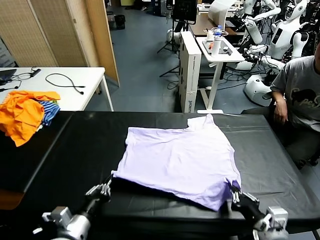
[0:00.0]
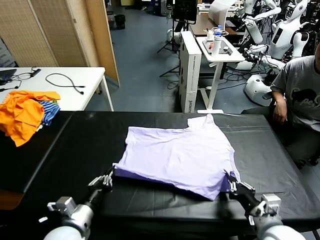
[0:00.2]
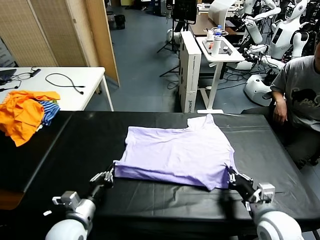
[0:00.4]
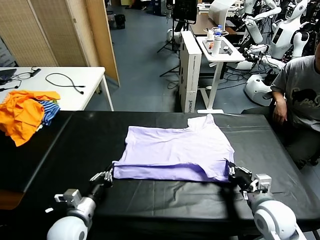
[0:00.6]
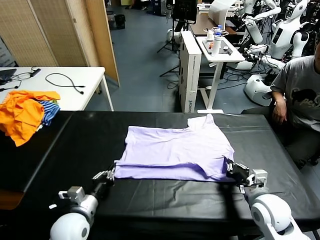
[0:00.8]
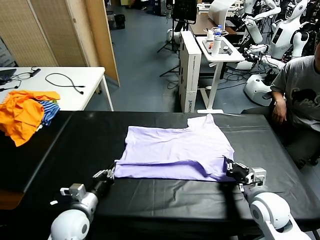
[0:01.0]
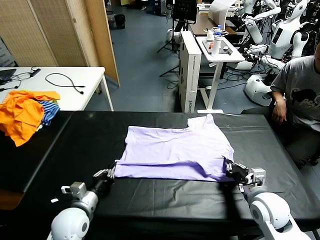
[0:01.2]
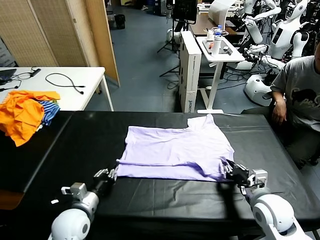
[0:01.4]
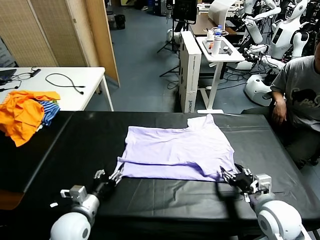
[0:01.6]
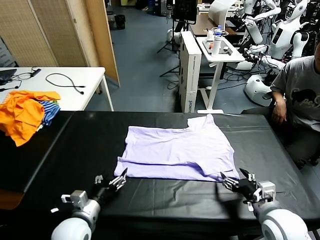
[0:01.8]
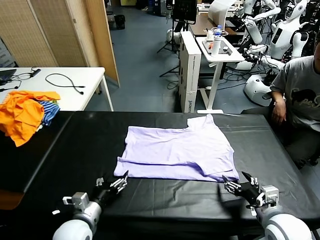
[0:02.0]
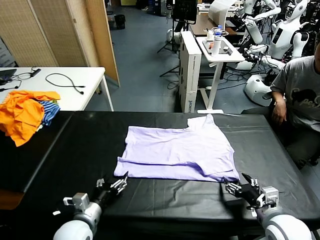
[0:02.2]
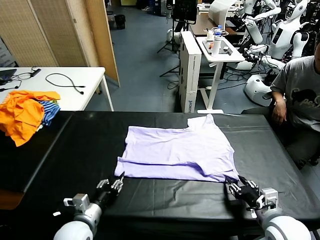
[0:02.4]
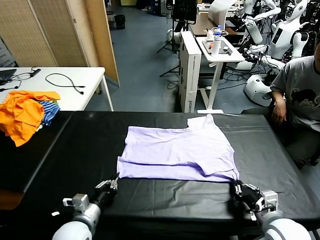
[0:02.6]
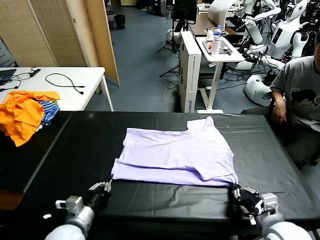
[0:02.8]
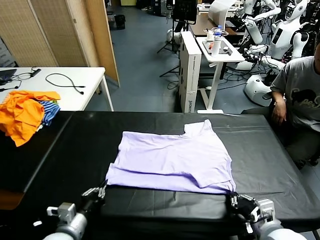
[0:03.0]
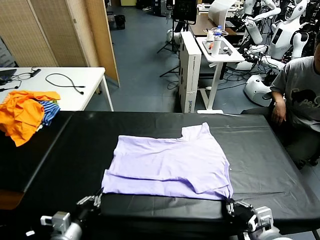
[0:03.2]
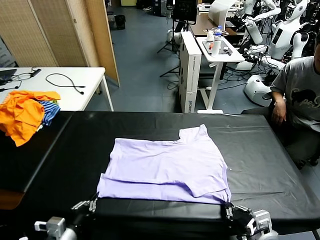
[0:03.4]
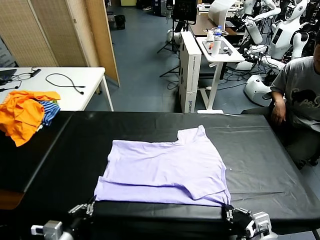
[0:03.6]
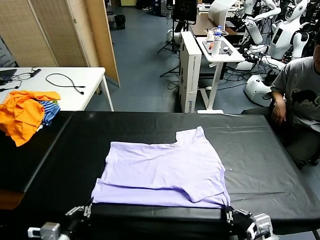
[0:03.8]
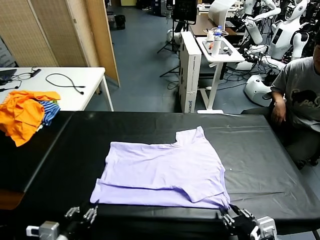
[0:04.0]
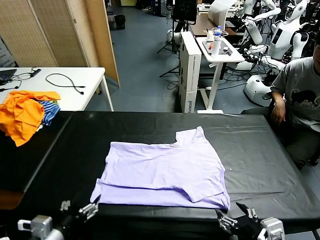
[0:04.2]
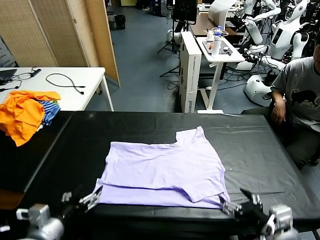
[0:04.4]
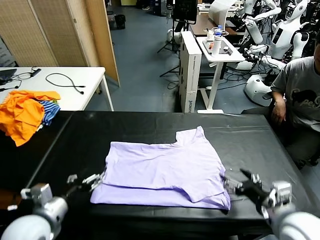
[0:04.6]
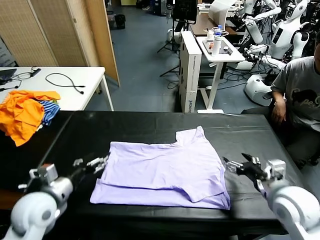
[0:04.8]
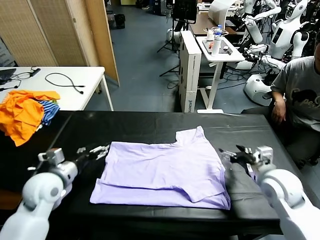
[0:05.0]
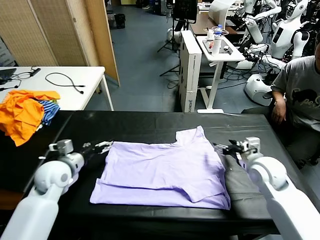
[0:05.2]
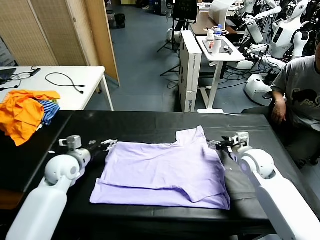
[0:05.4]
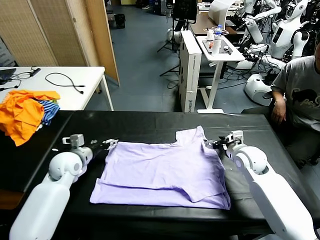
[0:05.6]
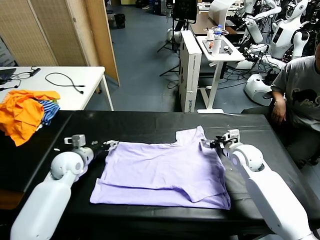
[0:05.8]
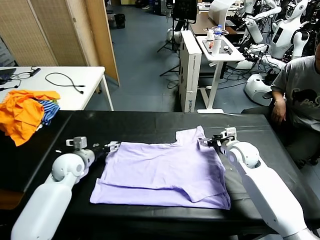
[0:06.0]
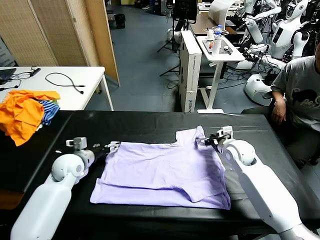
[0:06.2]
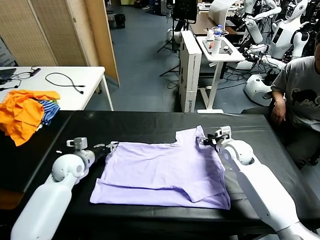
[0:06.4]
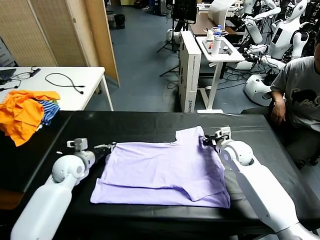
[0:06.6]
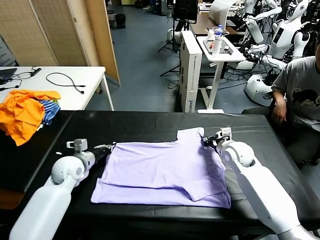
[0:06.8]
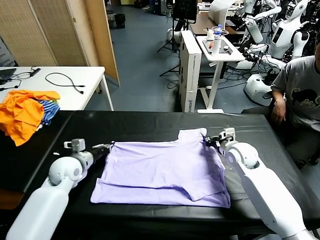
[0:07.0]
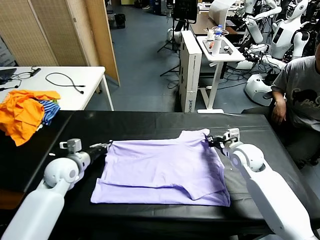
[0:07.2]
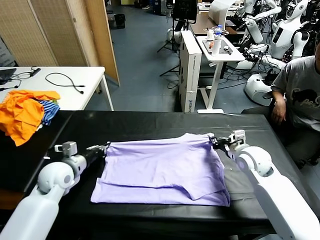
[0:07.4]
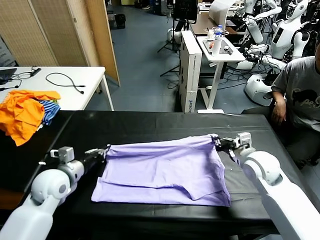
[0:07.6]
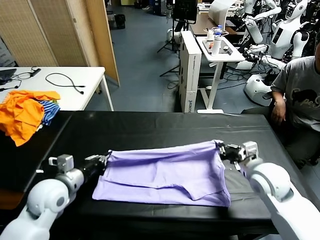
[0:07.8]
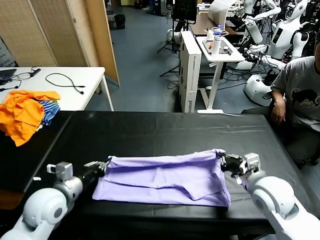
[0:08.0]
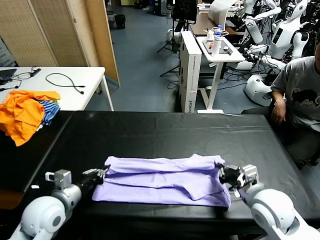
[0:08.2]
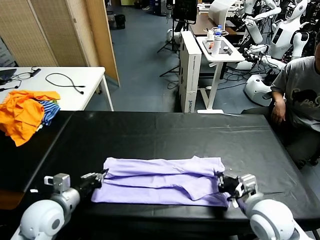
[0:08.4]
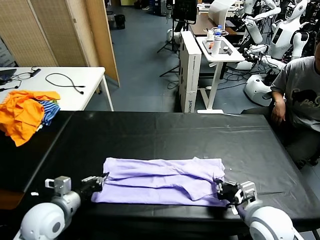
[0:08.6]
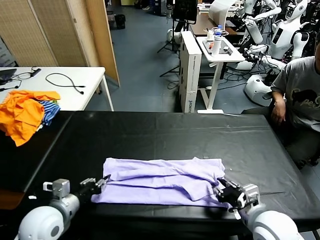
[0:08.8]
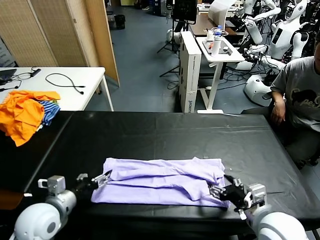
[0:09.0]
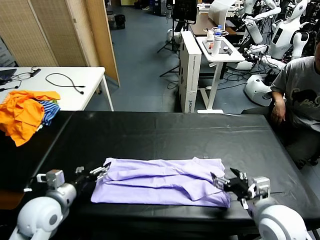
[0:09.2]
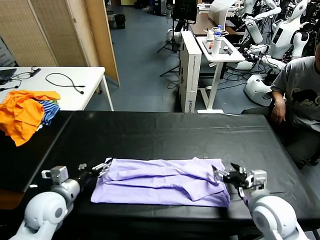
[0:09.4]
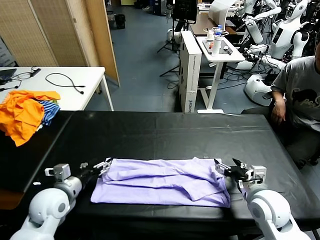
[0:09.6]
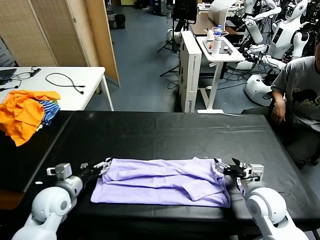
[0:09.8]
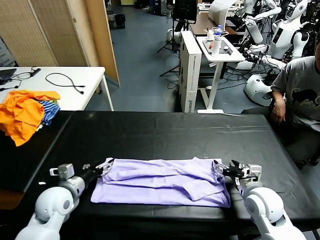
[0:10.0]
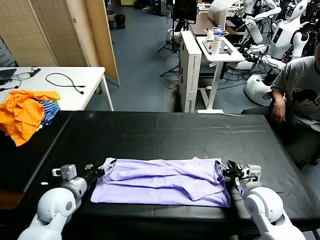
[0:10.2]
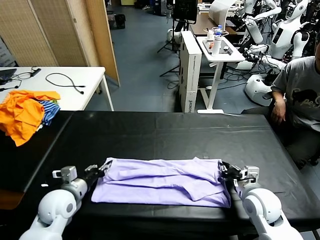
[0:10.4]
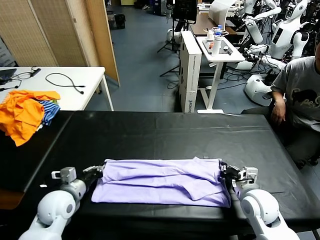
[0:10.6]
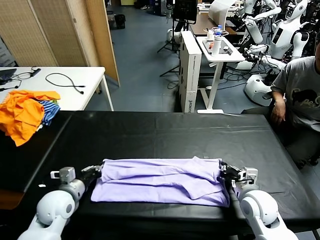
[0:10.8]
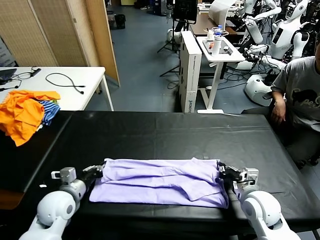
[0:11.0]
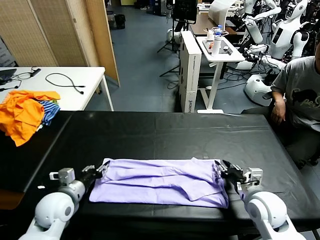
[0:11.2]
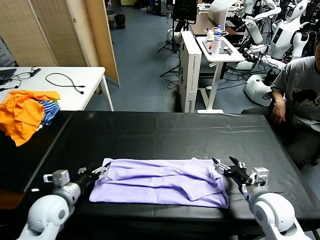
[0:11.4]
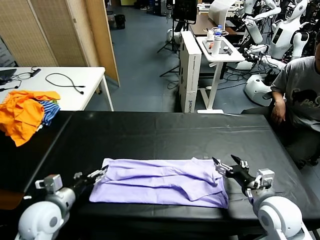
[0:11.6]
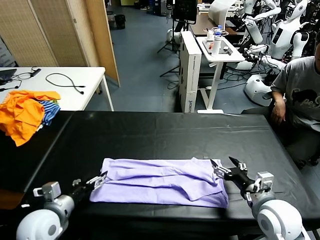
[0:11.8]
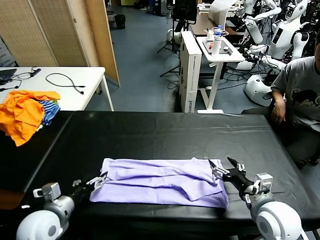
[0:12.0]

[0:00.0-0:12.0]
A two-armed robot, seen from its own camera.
Task of the whole recording: fold and organize the clothes.
Step, 0:00.0 to 0:01.4: use both grippers to drag the lower edge of the fabric forward and fold it over the upper edge.
Step, 0:01.6 to 0:04.0: Drag the clothes downward with both gripper.
Step, 0:04.2 to 0:06.6: use both grippers simultaneously to clamp the upper edge of the clothing fabric.
Step, 0:06.8 to 0:11.4: use both grippers to drag the upper edge of the fabric backward and fold it over the lower edge.
0:00.0 to 0:01.6: The right gripper reaches approximately 10 cm forward, then returns, and opens up. Meanwhile the left gripper opens.
0:01.6 to 0:03.0: Both grippers move backward, about 5 cm. The right gripper closes up. Meanwhile the left gripper closes.
0:03.0 to 0:04.4: Both grippers travel together upward, about 5 cm. The left gripper opens its fingers. The right gripper opens its fingers.
0:04.4 to 0:06.0: The two grippers go roughly 25 cm forward.
0:06.0 to 0:07.6: The right gripper is displaced backward and upward by some 15 cm, and closes up. The left gripper goes about 10 cm backward, and closes its fingers.
0:07.6 to 0:09.0: The left gripper moves backward, about 10 cm, and opens; the right gripper travels backward by roughly 15 cm, and opens.
0:09.0 to 0:10.4: The right gripper moves downward and forward, roughly 10 cm, and closes its fingers. The left gripper moves forward and downward, roughly 10 cm, and closes up.
0:10.4 to 0:12.0: The left gripper travels backward by roughly 5 cm, and opens up. The right gripper is displaced backward and upward by roughly 10 cm, and opens up.

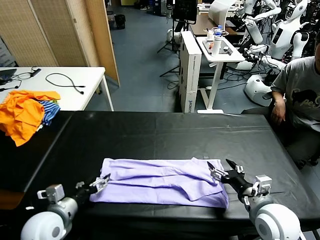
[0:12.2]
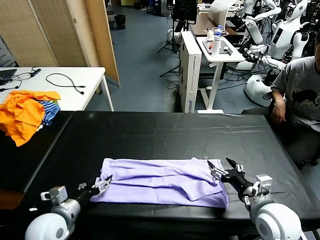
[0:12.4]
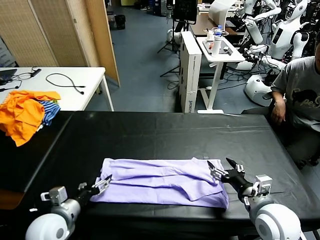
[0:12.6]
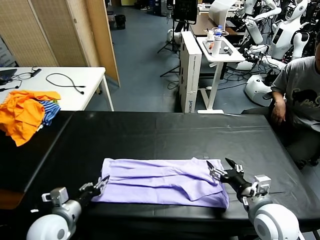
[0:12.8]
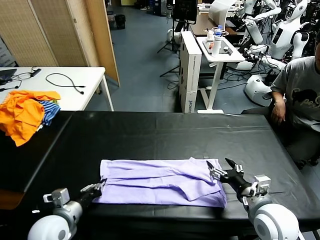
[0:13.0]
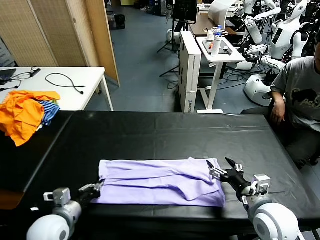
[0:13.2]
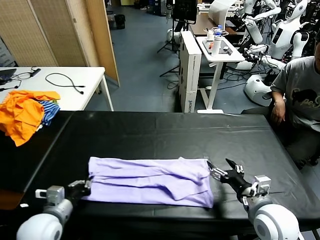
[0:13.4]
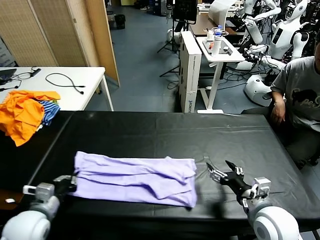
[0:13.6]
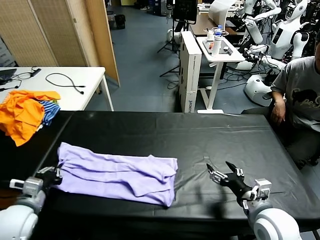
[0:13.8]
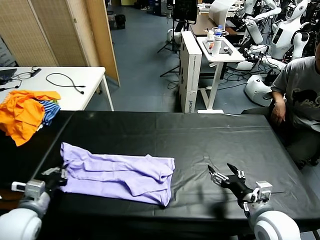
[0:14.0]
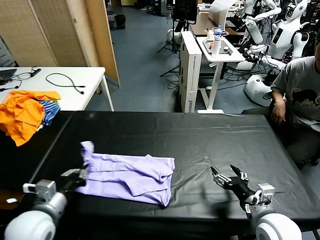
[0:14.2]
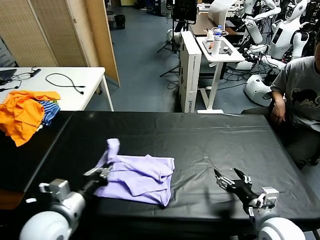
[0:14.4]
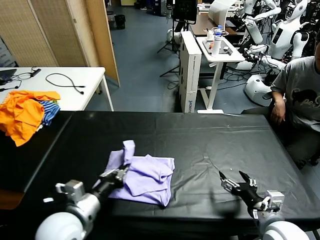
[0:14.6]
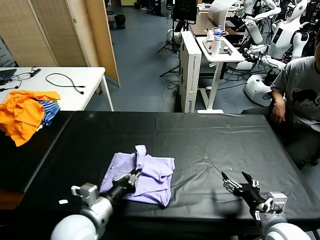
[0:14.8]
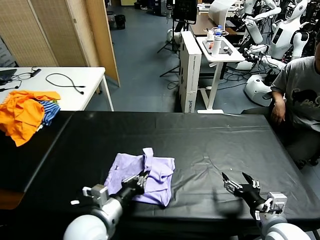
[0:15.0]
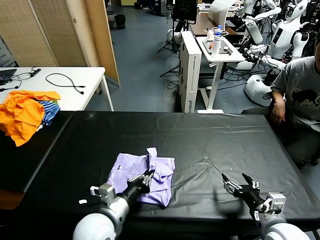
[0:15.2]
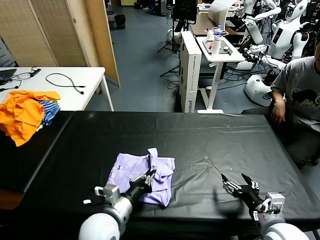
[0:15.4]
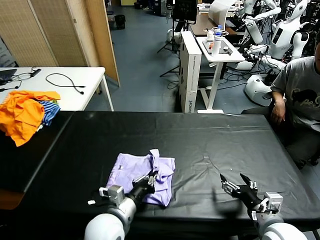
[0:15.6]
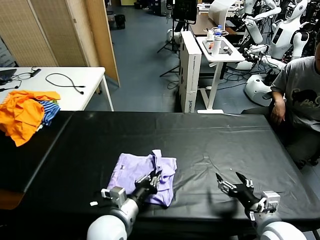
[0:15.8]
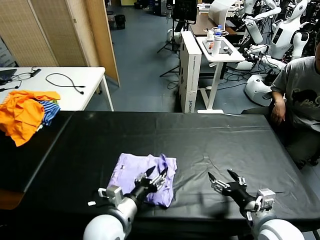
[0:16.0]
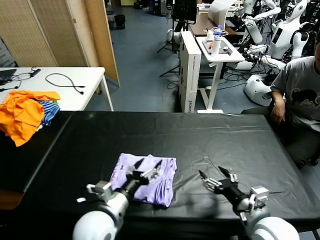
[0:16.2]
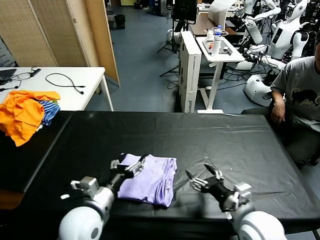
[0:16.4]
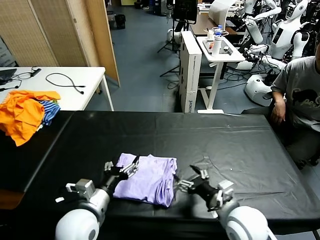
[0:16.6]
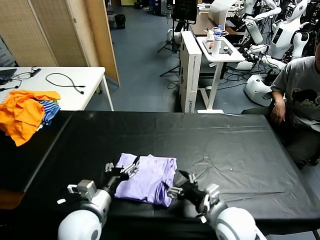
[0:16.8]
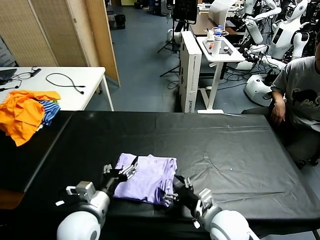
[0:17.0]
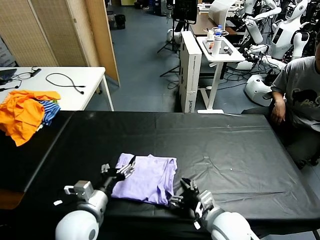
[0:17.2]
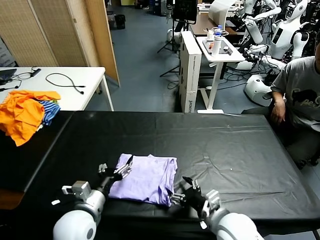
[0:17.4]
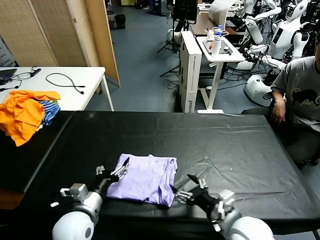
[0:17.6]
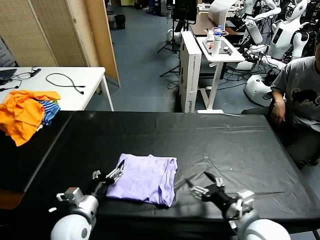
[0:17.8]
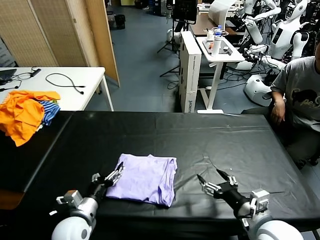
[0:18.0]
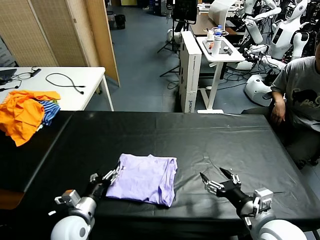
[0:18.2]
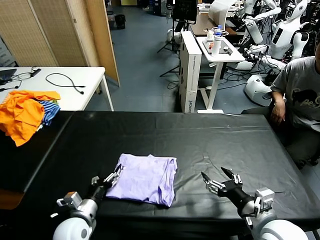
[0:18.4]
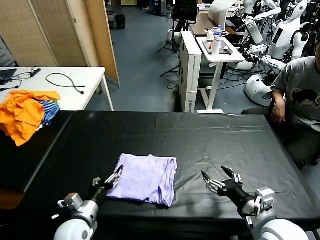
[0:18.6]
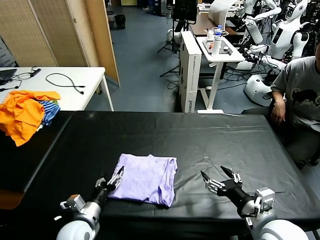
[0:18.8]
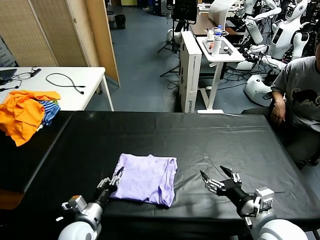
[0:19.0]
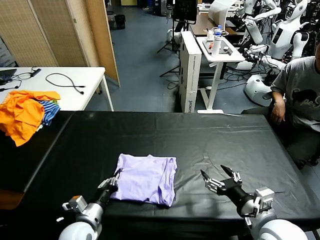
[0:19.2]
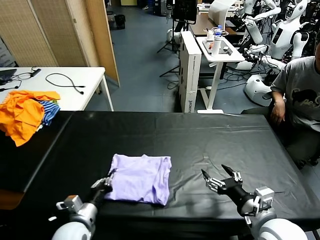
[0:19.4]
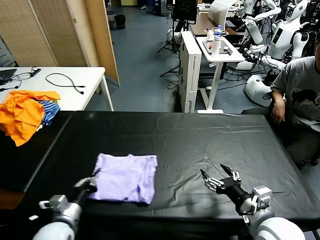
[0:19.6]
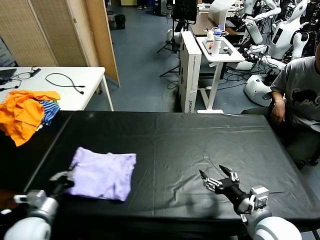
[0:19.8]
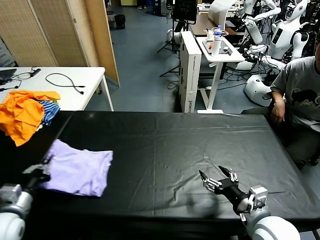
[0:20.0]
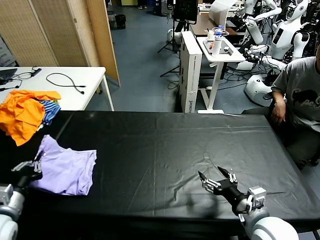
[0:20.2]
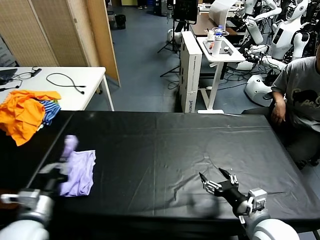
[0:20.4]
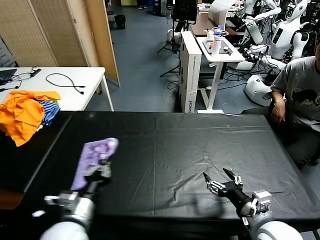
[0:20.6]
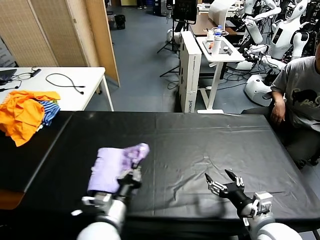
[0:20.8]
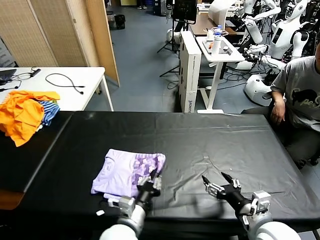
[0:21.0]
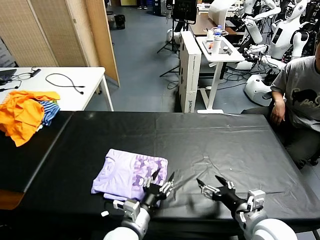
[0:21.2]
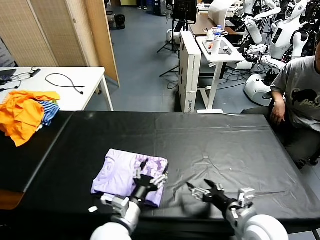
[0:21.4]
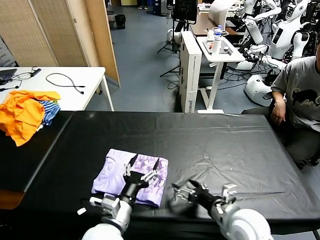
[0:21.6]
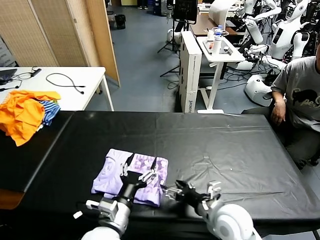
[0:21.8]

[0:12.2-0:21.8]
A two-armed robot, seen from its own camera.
Task of the whole recording: fold and organize the clothes.
Step, 0:12.2 to 0:13.0: use the left gripper to clamp the left edge of the fabric.
Step, 0:13.4 to 0:17.4: use the left gripper to drag the left edge of the fabric to the left and folds it over the right edge.
Step, 0:17.8 to 0:21.4: Flip the folded clothes over with left gripper.
0:12.2 to 0:13.8: The left gripper heads to the left, covering some 5 cm, and closes.
0:13.8 to 0:15.4: The left gripper shifts about 25 cm to the right.
0:15.4 to 0:17.0: The left gripper changes place by about 5 cm, and opens, while the right gripper shifts some 15 cm to the left.
0:17.0 to 0:18.6: The right gripper travels to the right and upward by some 10 cm. The left gripper travels downward and to the left by roughly 10 cm.
0:18.6 to 0:20.2: The left gripper heads to the left and upward, covering some 20 cm, and closes.
0:20.2 to 0:21.8: The right gripper travels to the left by approximately 5 cm. The left gripper heads to the right, covering some 25 cm, and opens its fingers.
